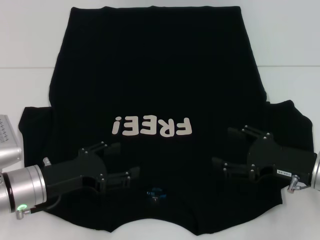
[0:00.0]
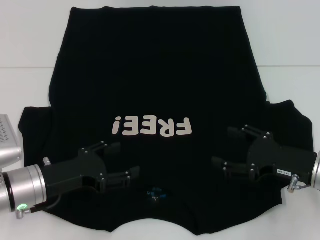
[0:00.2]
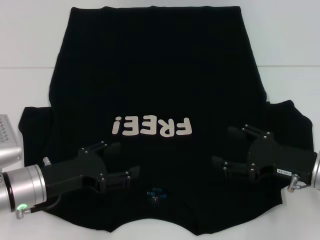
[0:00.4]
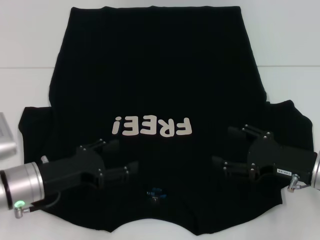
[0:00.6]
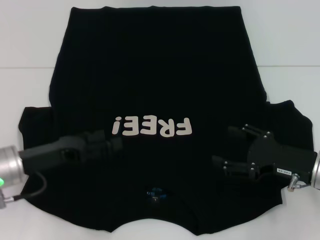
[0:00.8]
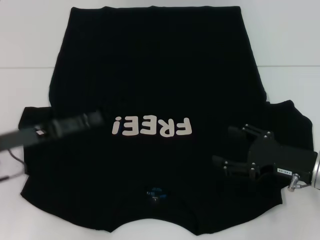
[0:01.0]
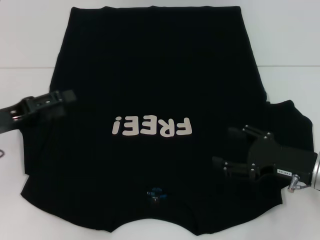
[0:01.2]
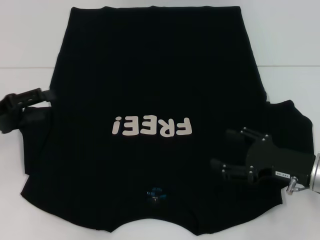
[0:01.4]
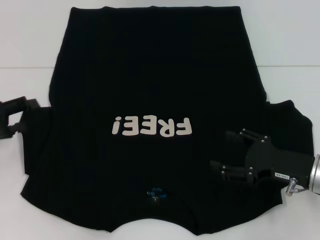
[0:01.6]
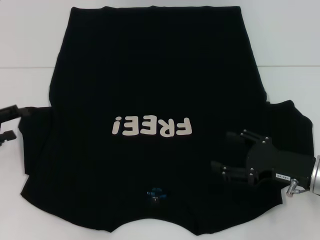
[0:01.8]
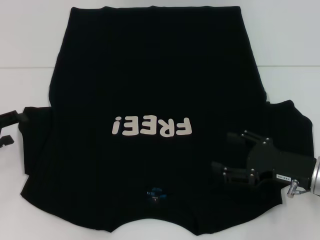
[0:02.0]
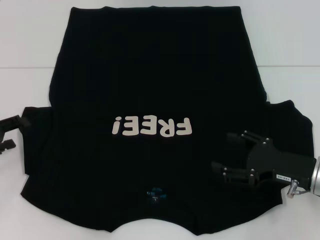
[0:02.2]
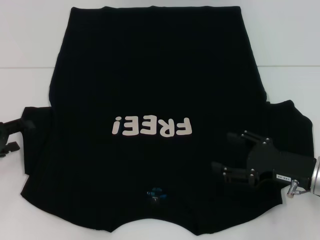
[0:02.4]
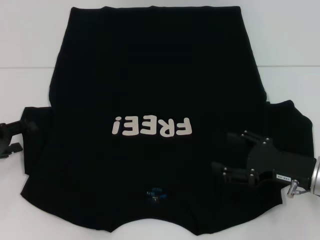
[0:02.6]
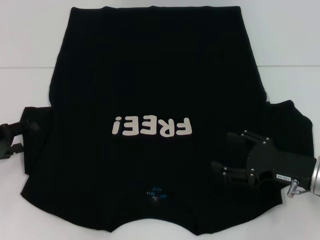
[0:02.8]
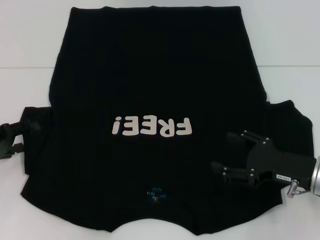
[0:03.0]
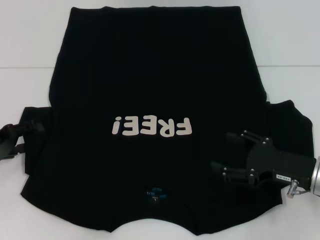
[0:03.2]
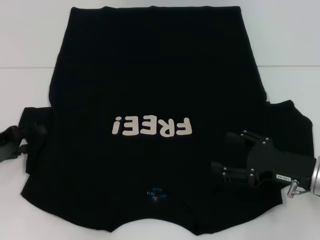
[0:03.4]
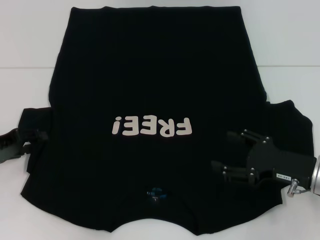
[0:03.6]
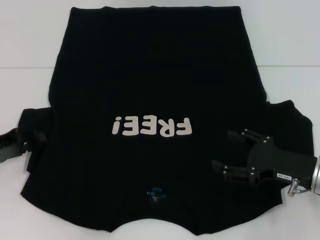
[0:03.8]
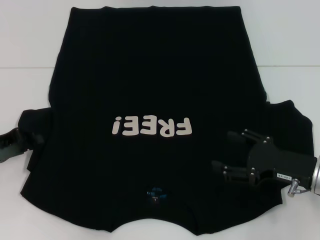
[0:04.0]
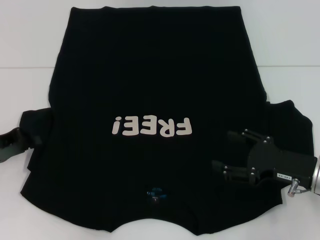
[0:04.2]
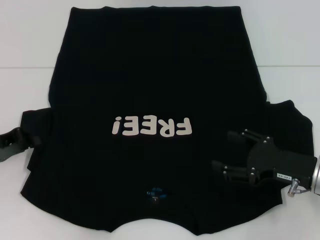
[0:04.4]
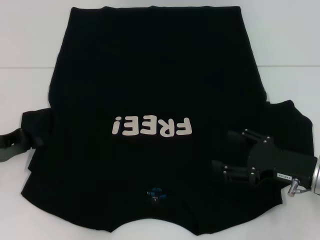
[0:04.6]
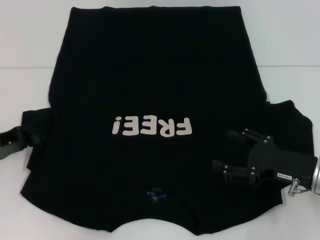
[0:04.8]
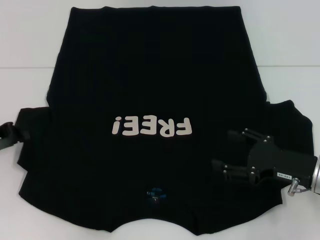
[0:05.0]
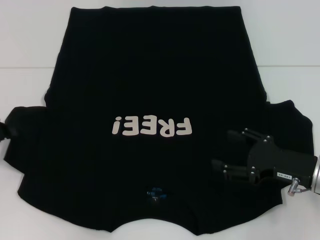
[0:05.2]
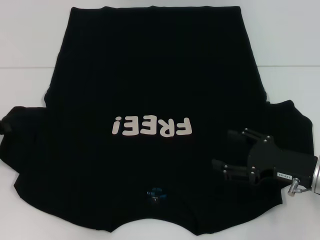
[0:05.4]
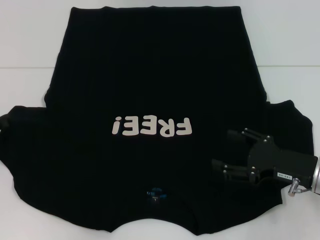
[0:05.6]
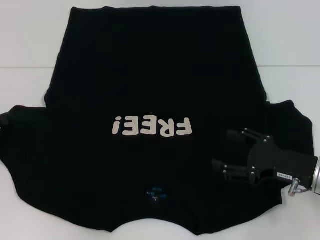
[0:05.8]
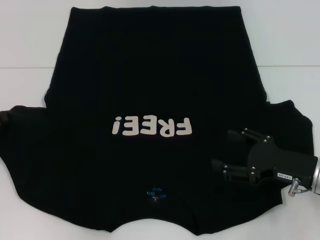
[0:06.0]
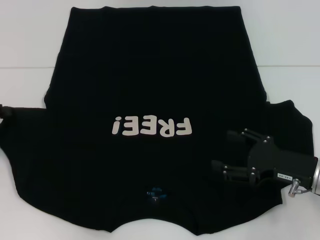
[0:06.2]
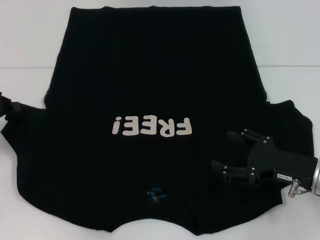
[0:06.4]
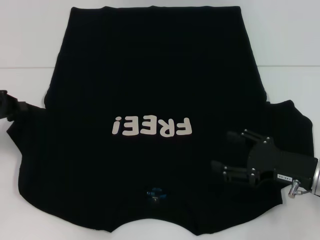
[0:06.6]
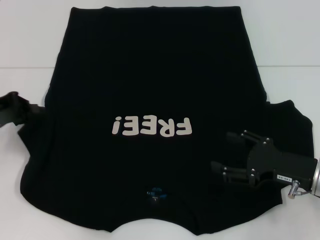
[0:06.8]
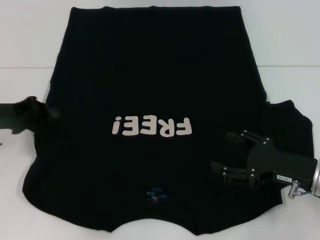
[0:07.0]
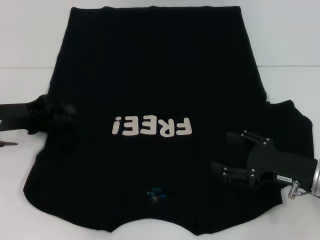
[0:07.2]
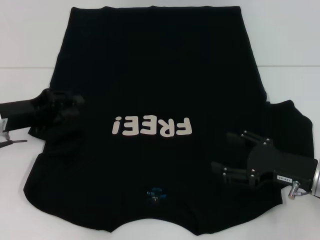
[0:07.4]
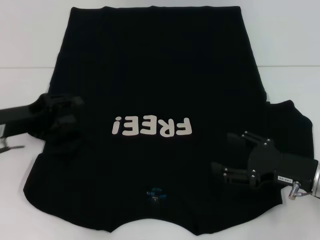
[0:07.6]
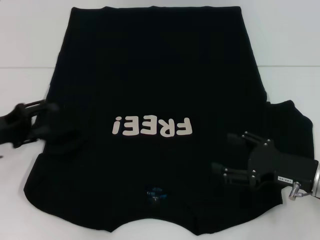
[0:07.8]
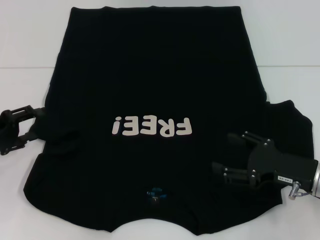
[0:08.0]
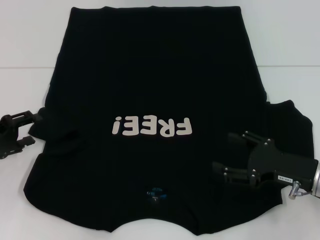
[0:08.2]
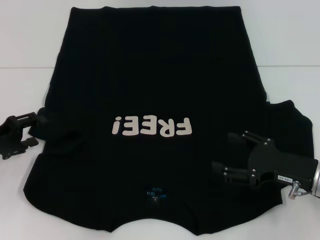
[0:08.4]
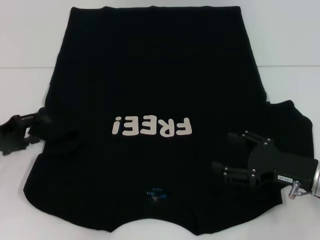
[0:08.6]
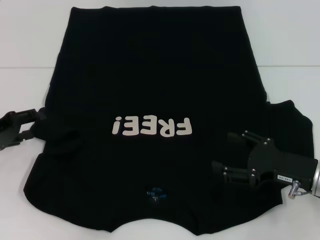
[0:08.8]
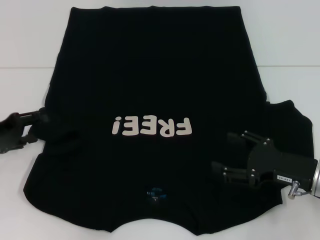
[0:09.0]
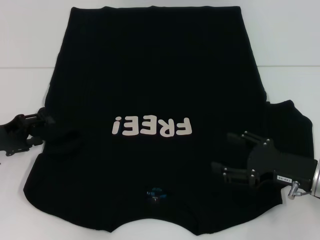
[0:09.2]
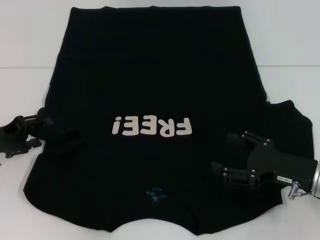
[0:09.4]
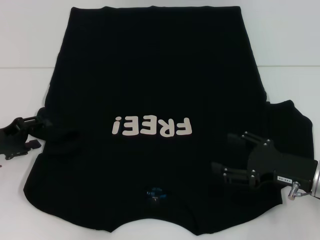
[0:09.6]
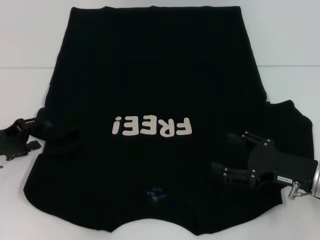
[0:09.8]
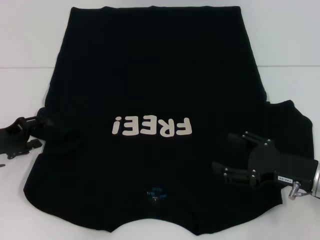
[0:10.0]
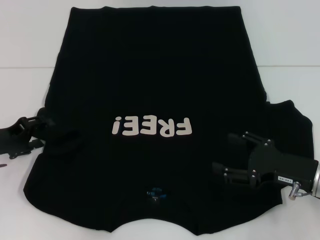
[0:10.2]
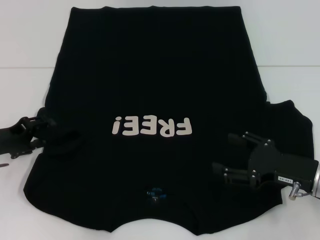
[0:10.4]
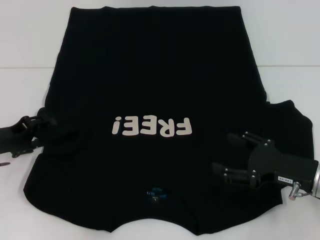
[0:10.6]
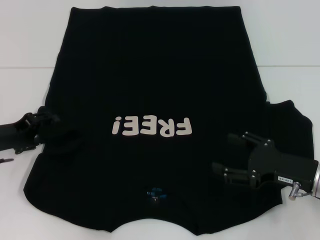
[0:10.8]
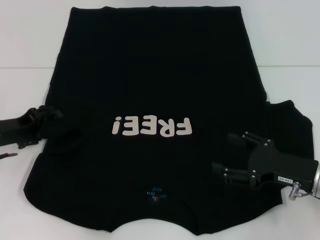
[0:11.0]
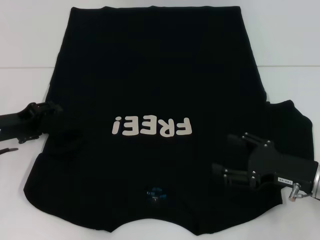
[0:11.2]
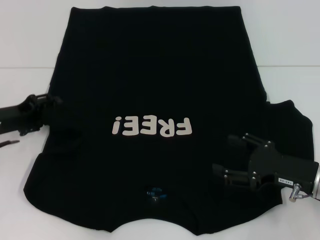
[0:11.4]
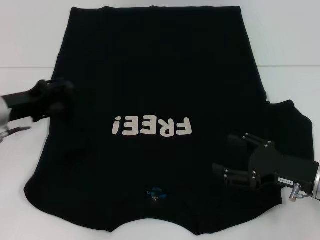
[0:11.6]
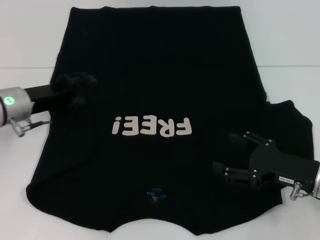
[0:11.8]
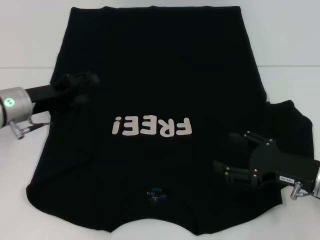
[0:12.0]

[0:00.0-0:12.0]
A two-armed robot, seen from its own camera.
Step, 0:00.0 to 0:11.8: Fold the bottom left sleeve with your left hand.
0:00.0 to 0:01.6: The left gripper goes approximately 15 cm to the left and upward.
0:01.6 to 0:03.0: The grippers make only small movements.
0:03.0 to 0:04.4: The left gripper closes.
0:04.4 to 0:06.0: The left gripper shifts by approximately 5 cm.
0:06.0 to 0:07.6: The left gripper is displaced to the right by approximately 10 cm, and opens.
0:07.6 to 0:09.0: The left gripper opens.
0:09.0 to 0:10.4: There are only small adjustments of the grippers.
0:10.4 to 0:12.0: The left gripper travels to the right and forward by approximately 10 cm.

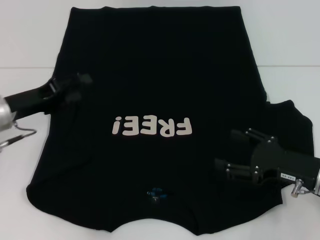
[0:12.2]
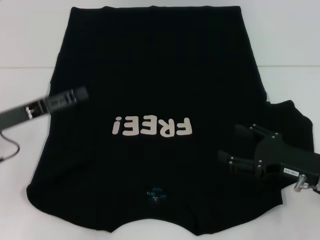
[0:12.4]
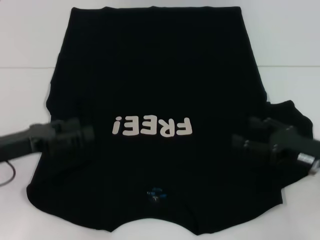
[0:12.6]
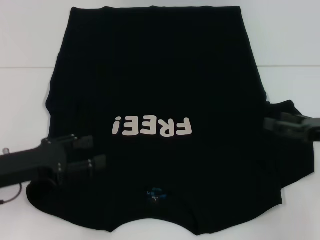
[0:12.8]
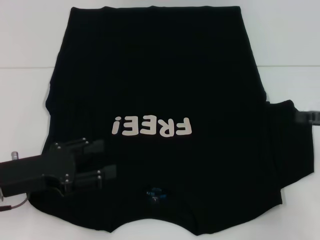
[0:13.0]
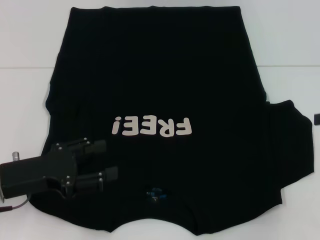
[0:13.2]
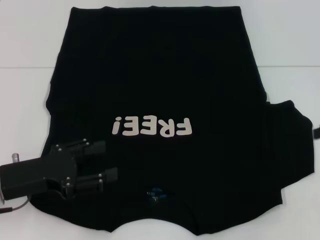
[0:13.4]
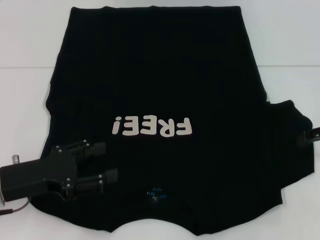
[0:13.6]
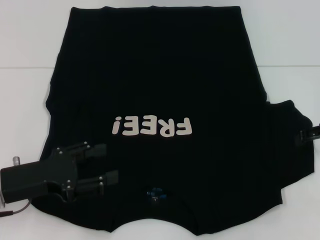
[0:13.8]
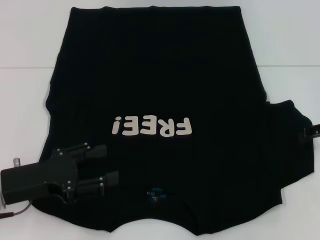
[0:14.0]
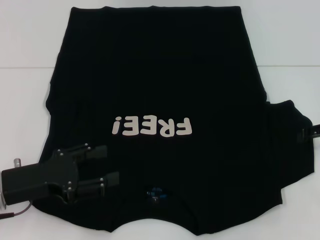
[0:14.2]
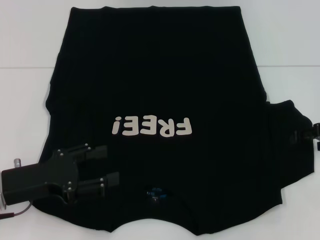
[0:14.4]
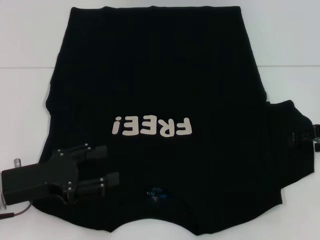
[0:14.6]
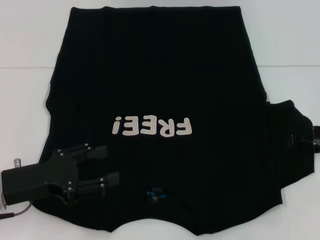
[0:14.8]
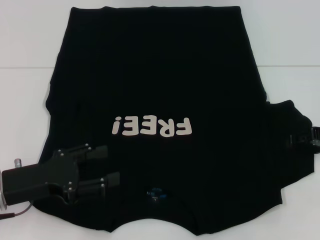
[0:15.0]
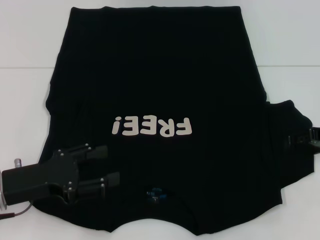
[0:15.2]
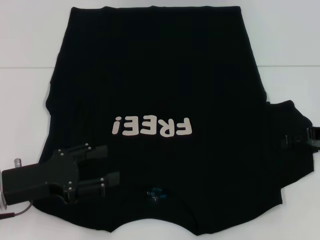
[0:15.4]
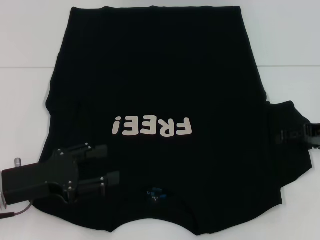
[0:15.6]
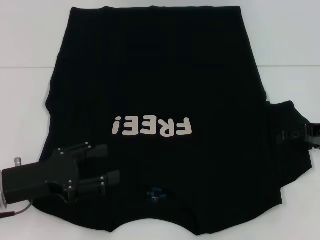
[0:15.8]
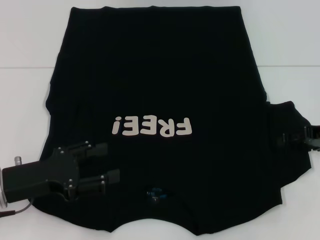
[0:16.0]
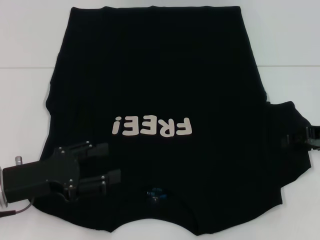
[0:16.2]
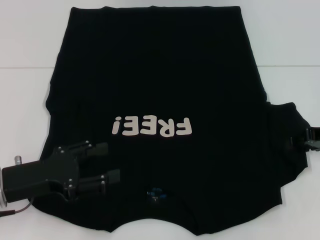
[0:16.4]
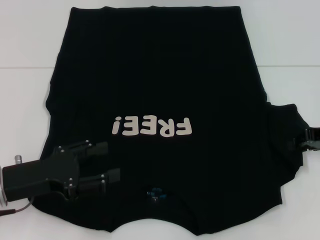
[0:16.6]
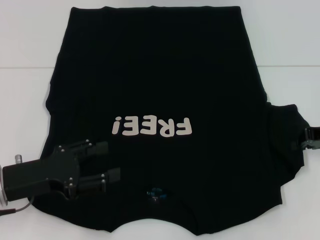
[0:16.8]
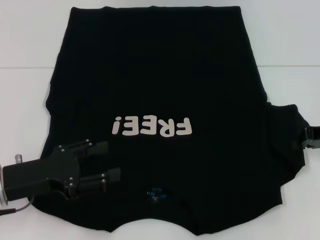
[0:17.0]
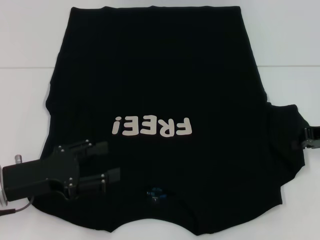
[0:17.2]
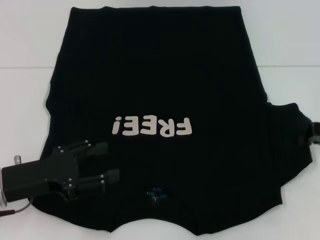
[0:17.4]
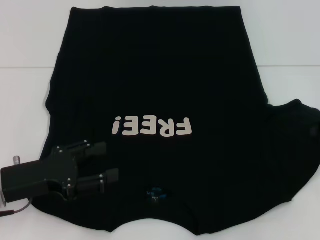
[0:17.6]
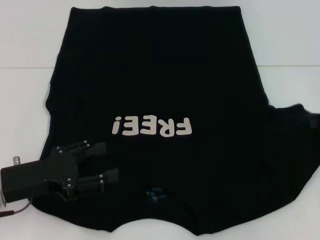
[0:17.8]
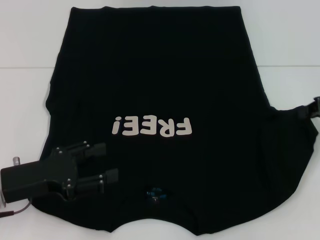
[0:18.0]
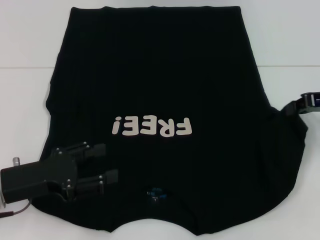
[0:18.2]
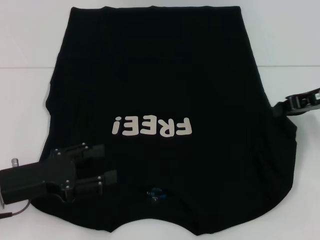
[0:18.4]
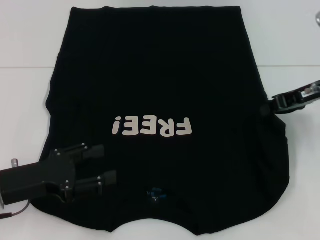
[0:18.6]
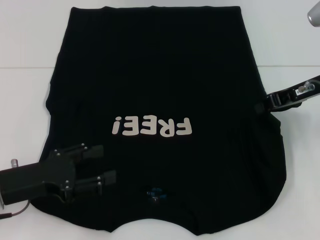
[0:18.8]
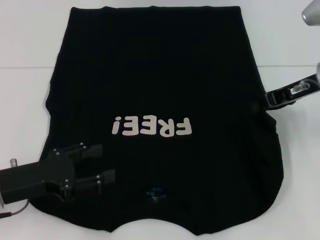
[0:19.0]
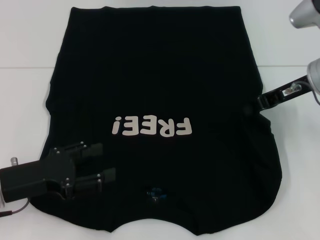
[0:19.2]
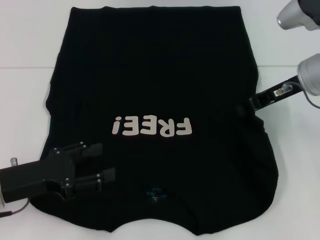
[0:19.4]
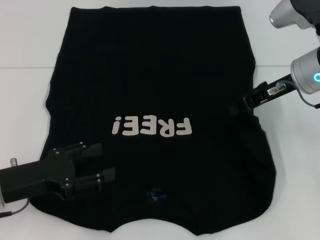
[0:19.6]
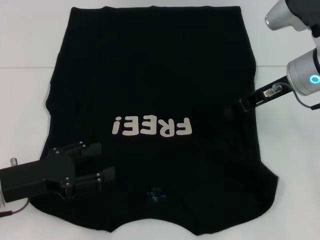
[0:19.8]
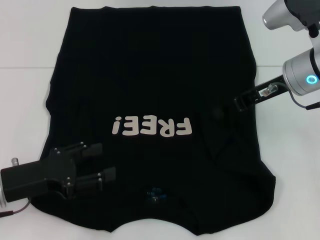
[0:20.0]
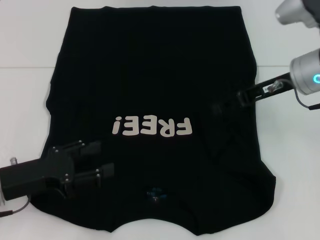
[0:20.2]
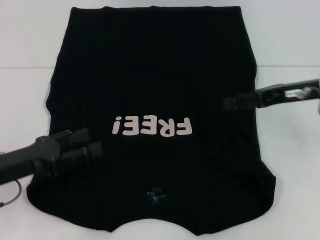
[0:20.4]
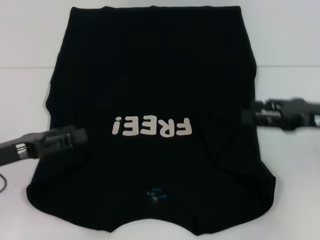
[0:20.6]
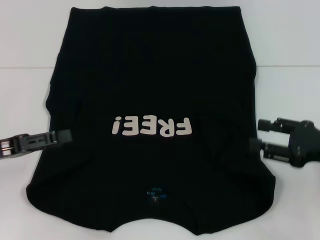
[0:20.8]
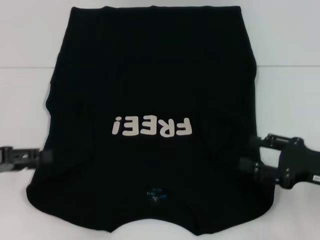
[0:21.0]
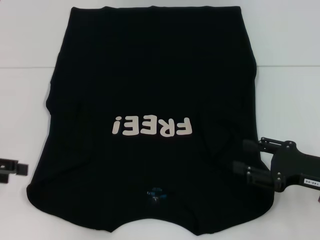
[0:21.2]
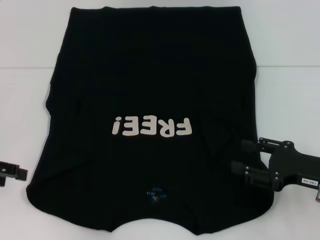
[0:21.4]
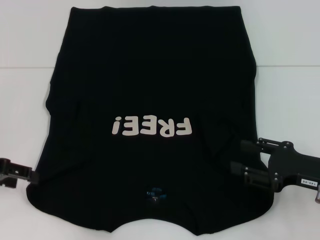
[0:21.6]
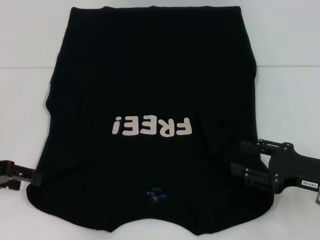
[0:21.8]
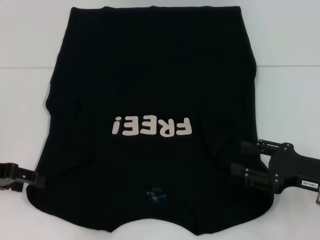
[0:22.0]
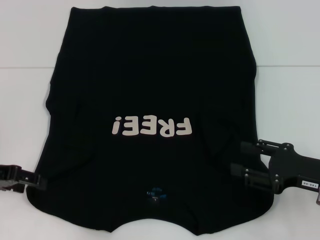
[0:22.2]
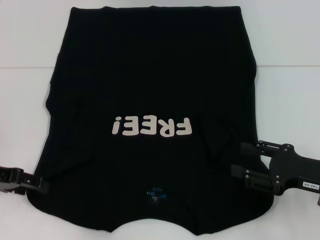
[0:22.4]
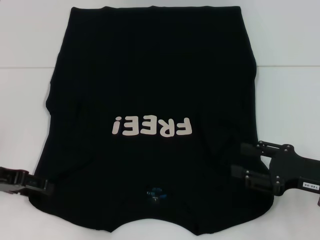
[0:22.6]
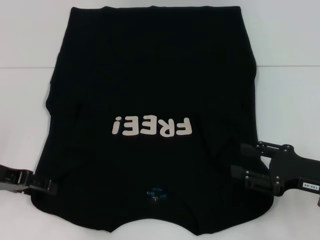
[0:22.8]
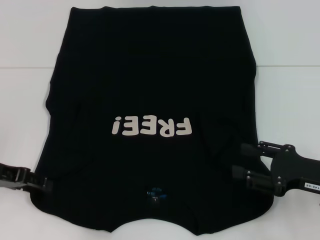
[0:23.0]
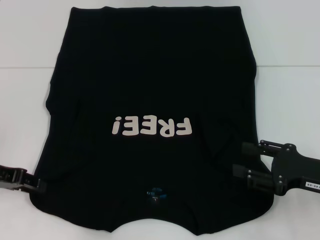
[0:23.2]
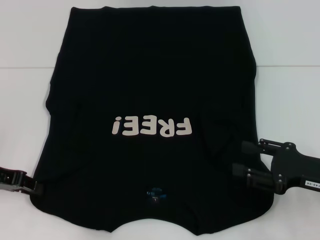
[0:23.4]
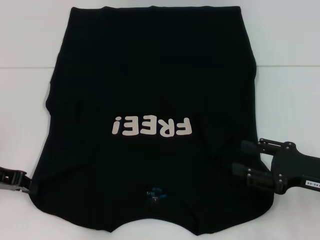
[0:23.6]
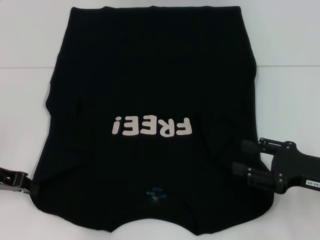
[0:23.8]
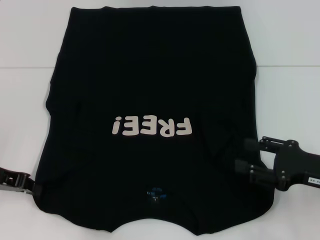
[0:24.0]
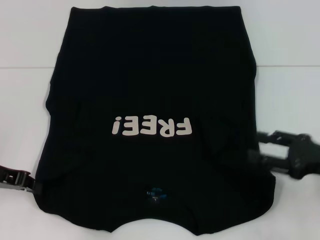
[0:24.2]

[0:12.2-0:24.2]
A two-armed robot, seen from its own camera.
Step, 0:12.2 to 0:20.4: Fold the bottom right sleeve with your right hand.
Step, 0:20.6 to 0:24.2: Grab the bottom left corner with your left hand.
0:12.2 to 0:13.8: The right gripper moves upward, forward and to the right, about 15 cm, while the left gripper travels backward by about 10 cm.
0:13.8 to 0:15.2: There are only small adjustments of the grippers.
0:15.2 to 0:16.6: The right gripper closes up.
0:16.6 to 0:18.2: The right gripper moves upward, roughly 5 cm, and closes.
0:18.2 to 0:19.8: The right gripper shifts some 10 cm to the left.
0:19.8 to 0:21.2: The left gripper heads to the left and upward, covering roughly 10 cm. The right gripper heads backward, downward and to the right, covering roughly 20 cm, and opens up.
0:21.2 to 0:22.6: The left gripper ends up some 5 cm from where it was.
0:22.6 to 0:24.2: The left gripper closes up.
